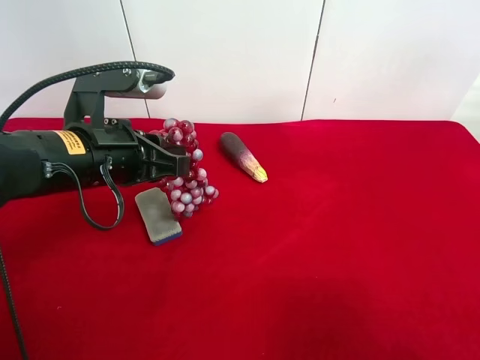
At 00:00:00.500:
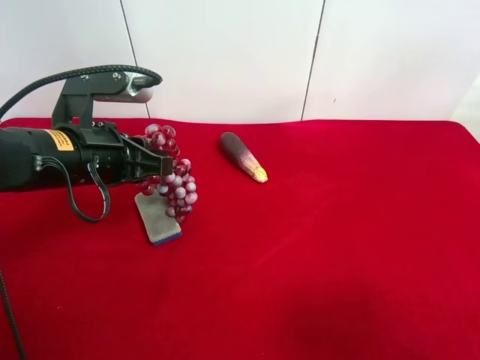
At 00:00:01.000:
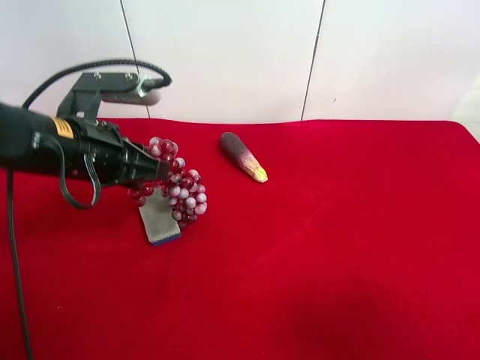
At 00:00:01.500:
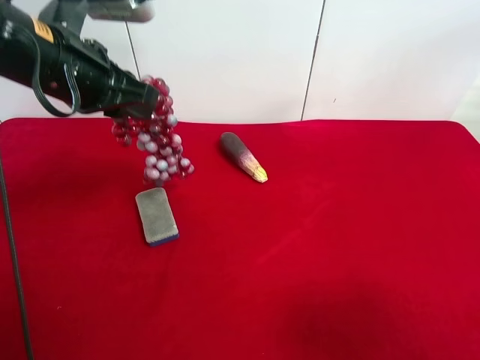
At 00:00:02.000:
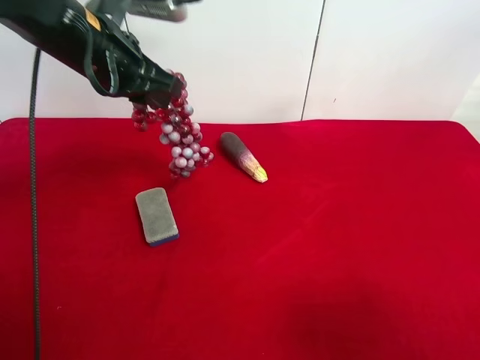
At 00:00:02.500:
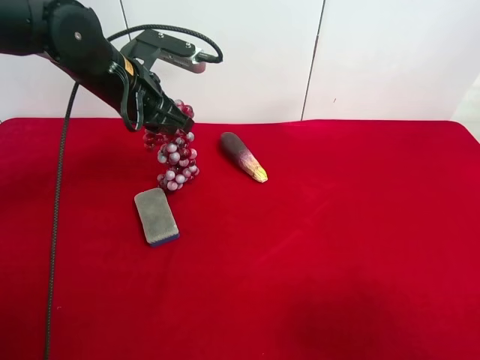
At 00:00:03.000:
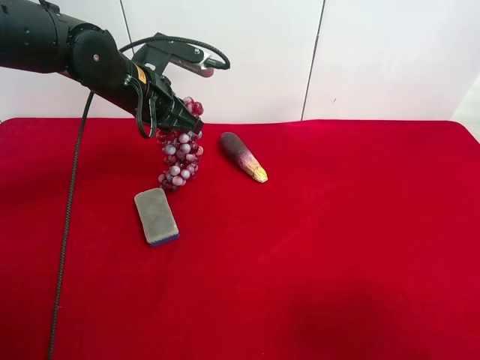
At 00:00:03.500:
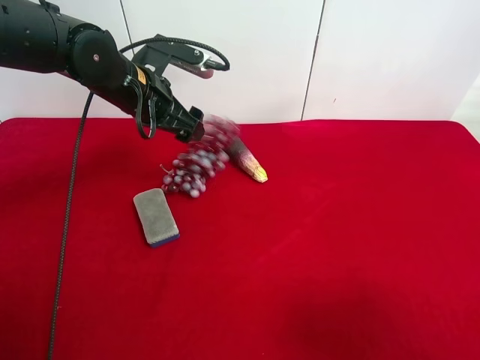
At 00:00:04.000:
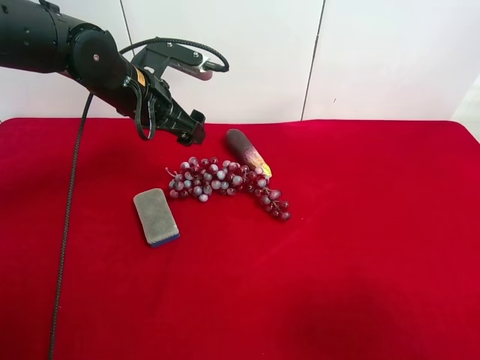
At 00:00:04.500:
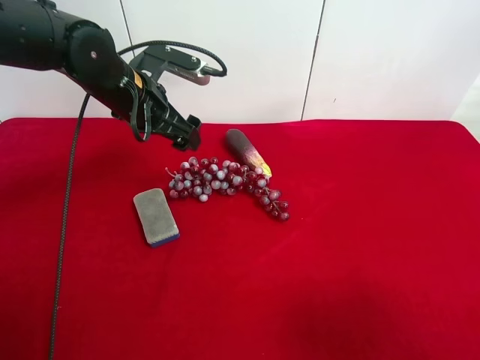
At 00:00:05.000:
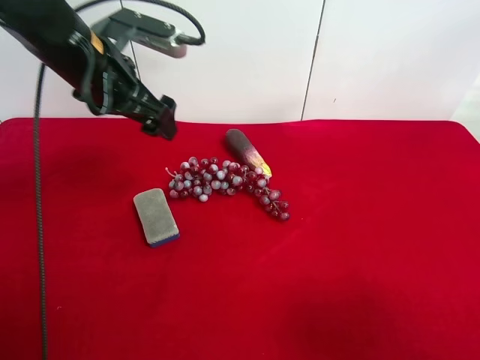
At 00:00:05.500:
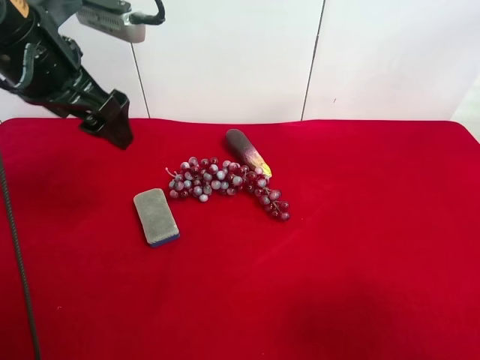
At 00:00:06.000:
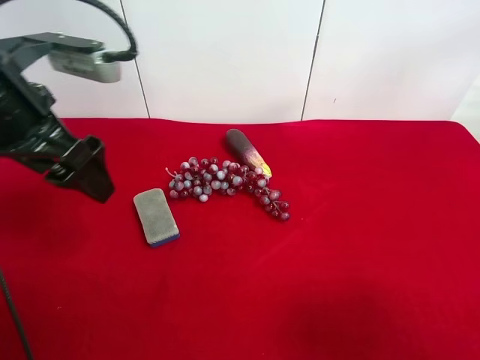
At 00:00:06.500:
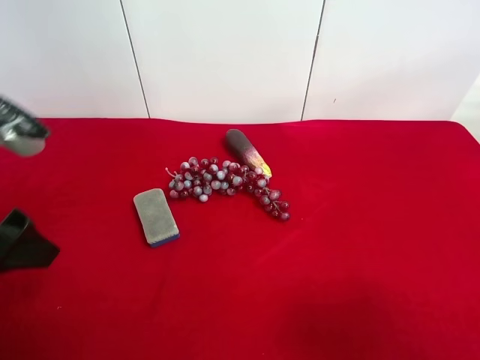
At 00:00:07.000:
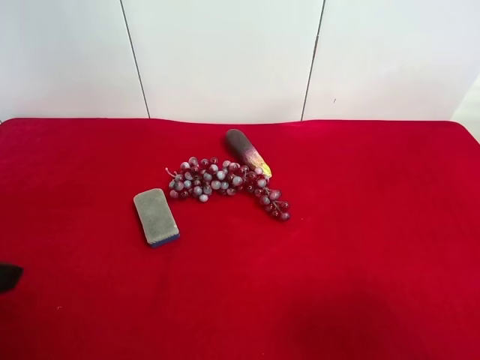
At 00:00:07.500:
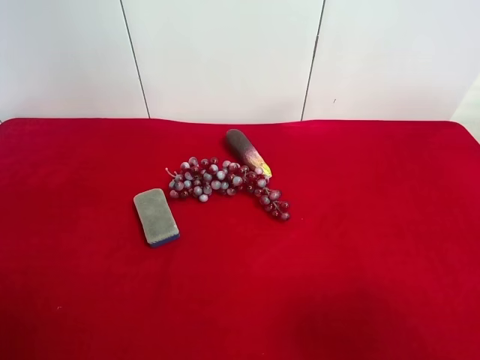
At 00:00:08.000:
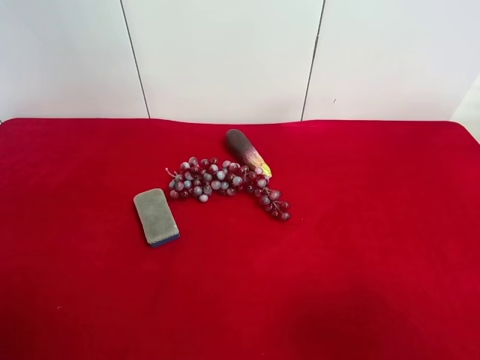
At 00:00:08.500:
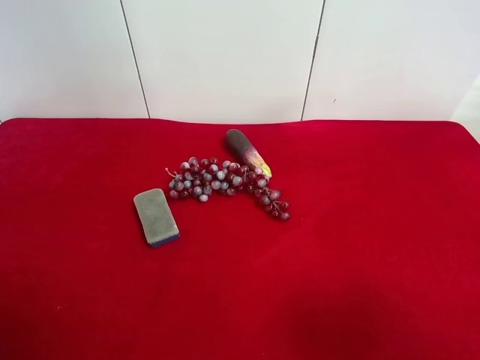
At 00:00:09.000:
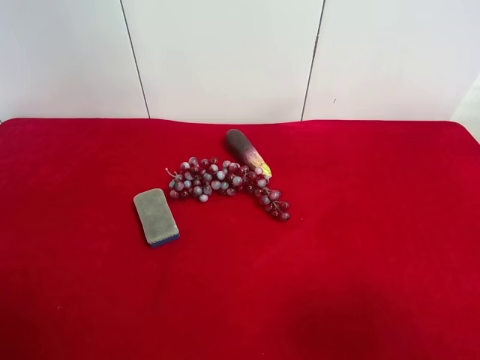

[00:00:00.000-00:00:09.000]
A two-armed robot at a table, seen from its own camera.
Task of the whole recording: use the right gripper to pick up the item and transfer it from the right gripper to the left gripper.
Step, 00:00:00.000 to 00:00:03.500: The left gripper places grape on the left side of the table.
00:00:00.000 to 00:00:02.000: The left gripper is displaced forward and upward by approximately 10 cm.
00:00:02.000 to 00:00:04.500: The left gripper goes approximately 5 cm downward, and opens.
00:00:04.500 to 00:00:07.000: The left gripper is displaced backward and to the left by some 30 cm.
